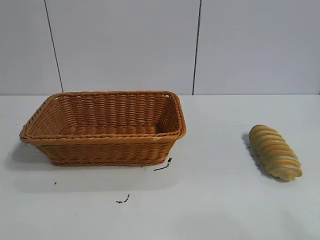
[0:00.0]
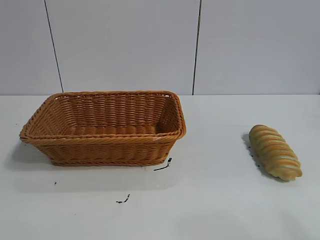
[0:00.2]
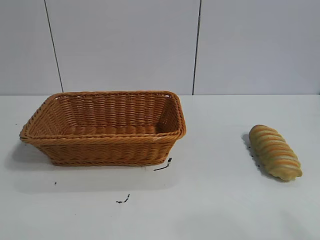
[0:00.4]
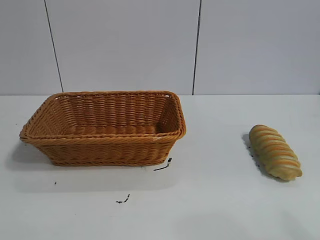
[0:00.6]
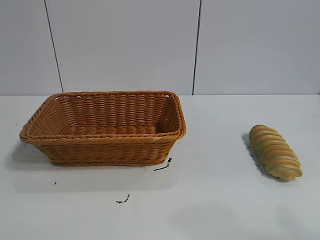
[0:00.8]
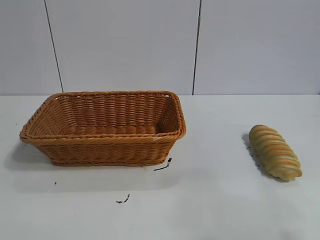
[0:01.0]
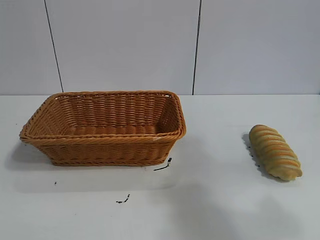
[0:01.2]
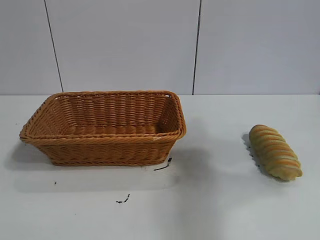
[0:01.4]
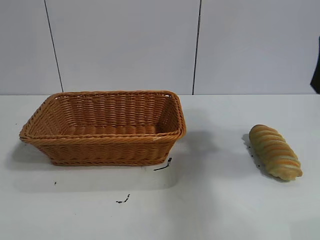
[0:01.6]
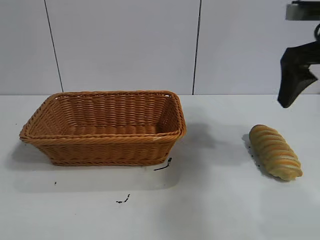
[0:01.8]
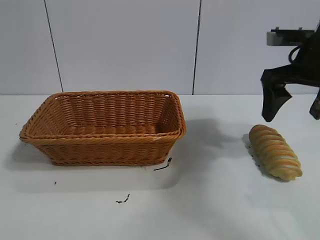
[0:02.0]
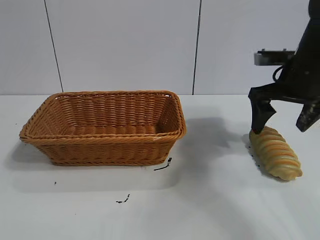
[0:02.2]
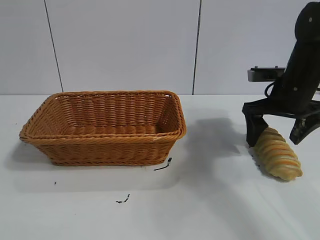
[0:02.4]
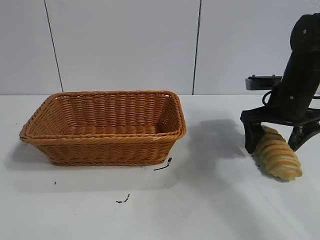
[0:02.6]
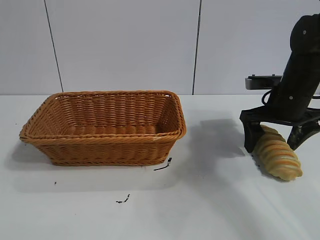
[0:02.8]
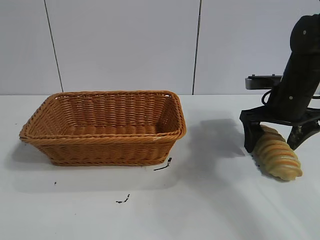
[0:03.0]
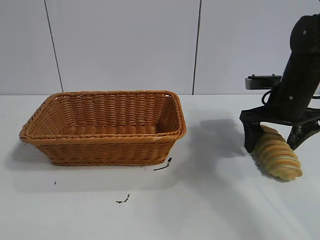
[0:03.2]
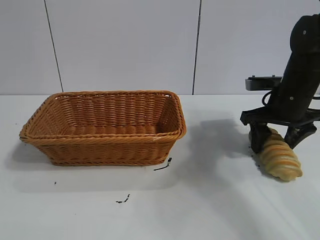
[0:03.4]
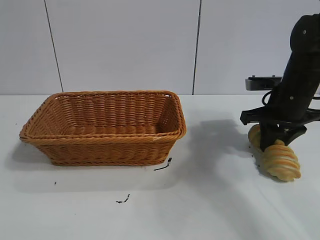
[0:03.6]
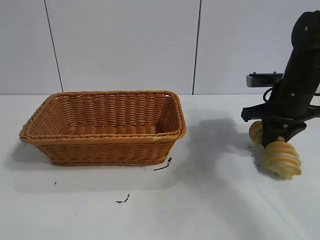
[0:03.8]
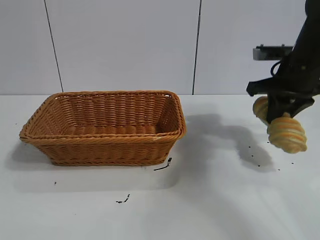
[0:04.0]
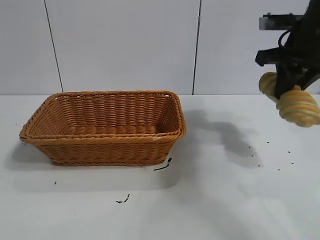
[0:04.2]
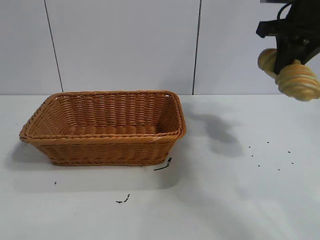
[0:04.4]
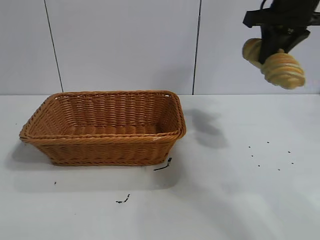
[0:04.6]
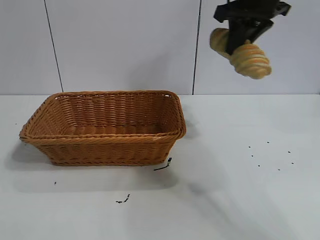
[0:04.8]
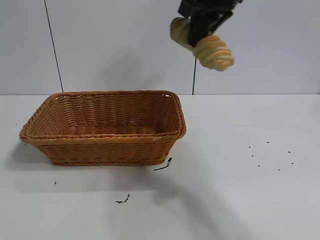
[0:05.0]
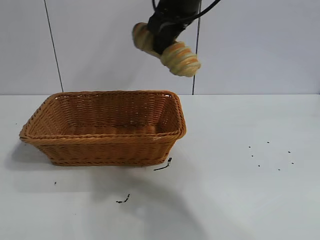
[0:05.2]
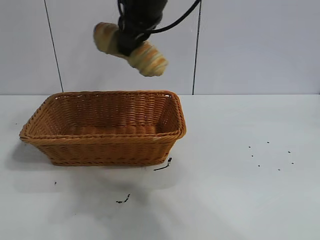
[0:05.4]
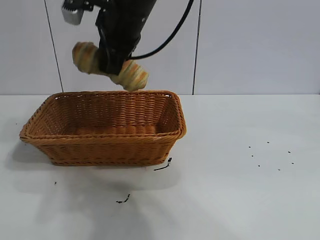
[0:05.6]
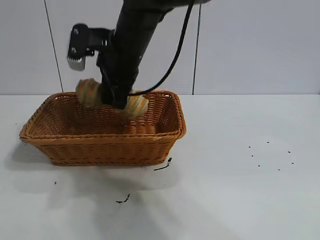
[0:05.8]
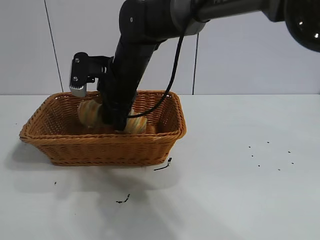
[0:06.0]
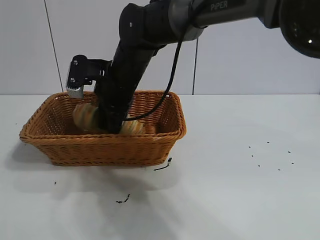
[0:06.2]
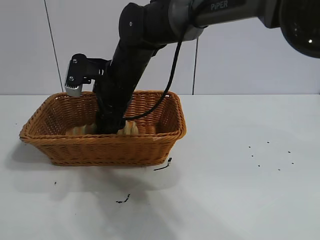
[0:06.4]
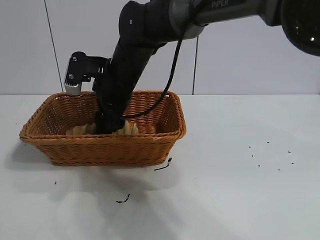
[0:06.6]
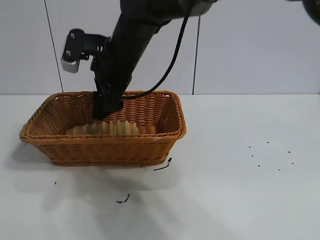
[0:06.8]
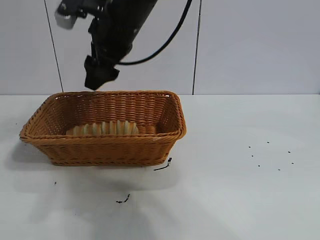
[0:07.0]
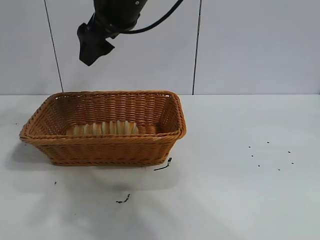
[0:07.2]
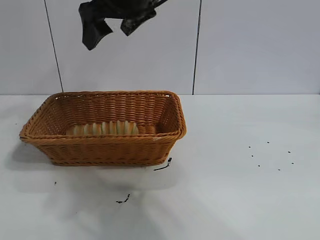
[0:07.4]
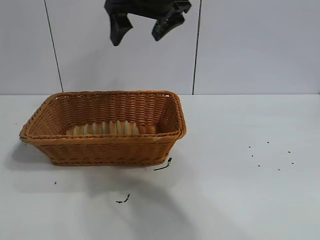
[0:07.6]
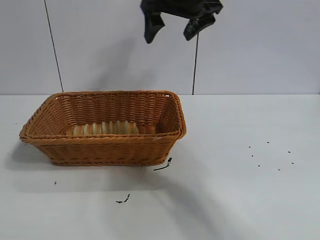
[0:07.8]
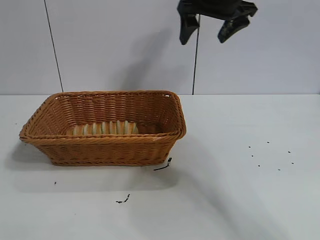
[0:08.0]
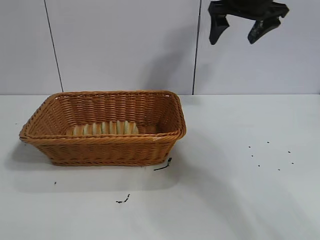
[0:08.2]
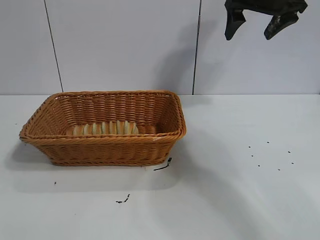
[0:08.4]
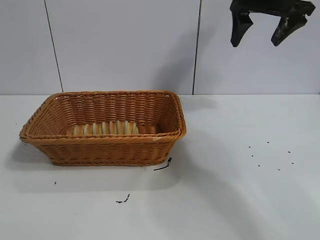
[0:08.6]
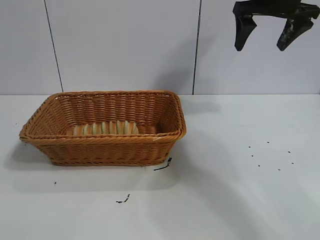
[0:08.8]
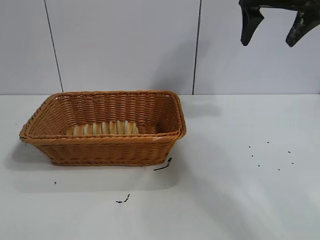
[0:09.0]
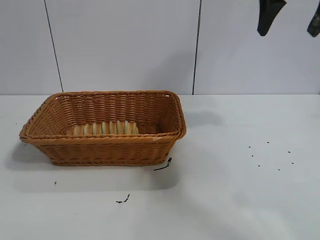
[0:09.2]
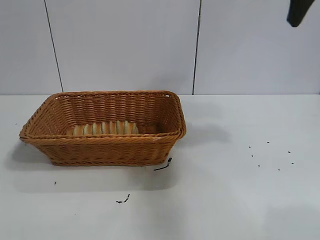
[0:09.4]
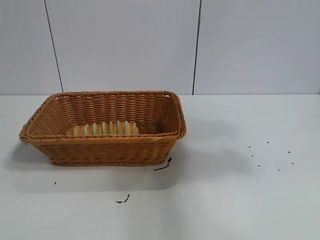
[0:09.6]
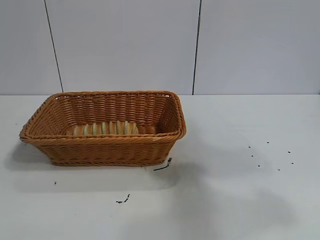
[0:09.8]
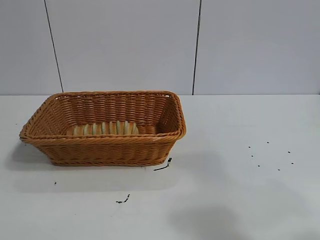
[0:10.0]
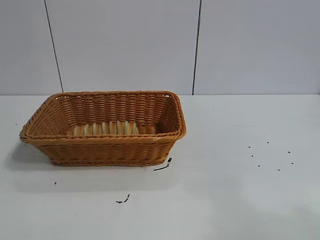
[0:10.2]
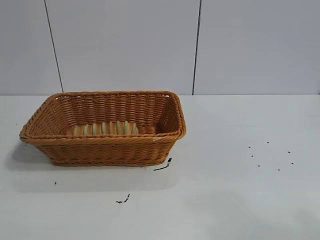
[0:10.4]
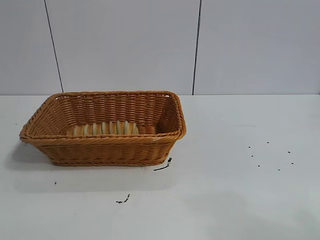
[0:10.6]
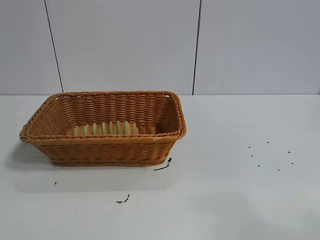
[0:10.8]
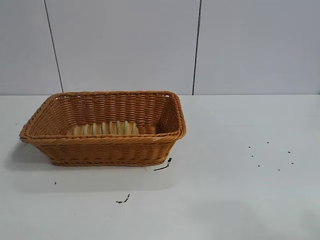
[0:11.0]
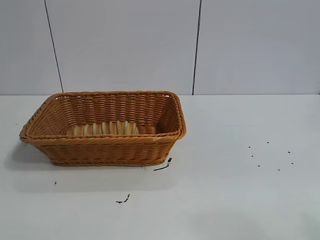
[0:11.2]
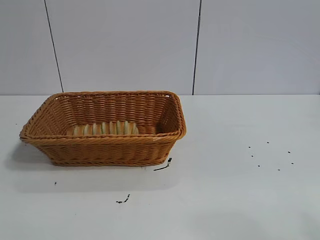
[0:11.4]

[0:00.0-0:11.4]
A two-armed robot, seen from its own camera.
Task of the whole recording: pick up the long bread and put it into the basket.
Step, 0:01.6 to 0:03.6: Grasp the long bread with right gripper.
Step, 0:04.0 to 0:06.8: Place the long bread in the basket with right gripper.
